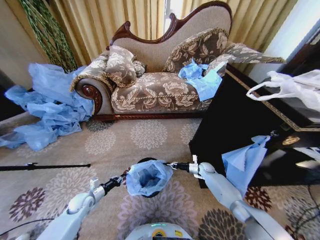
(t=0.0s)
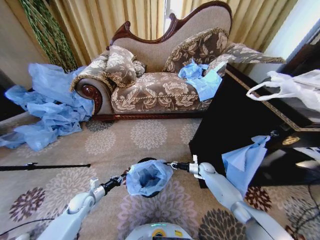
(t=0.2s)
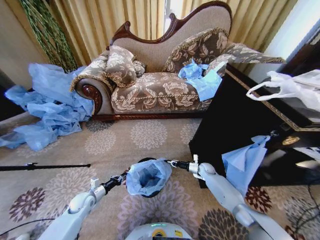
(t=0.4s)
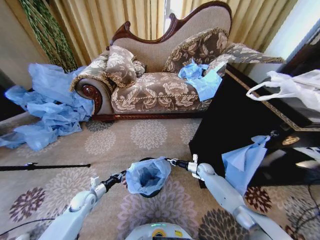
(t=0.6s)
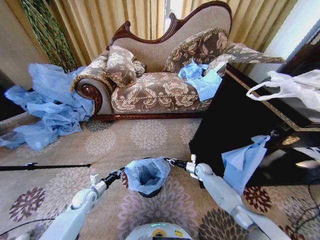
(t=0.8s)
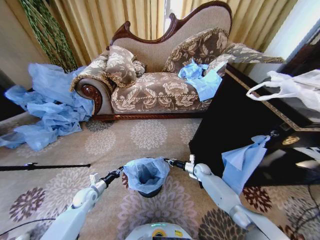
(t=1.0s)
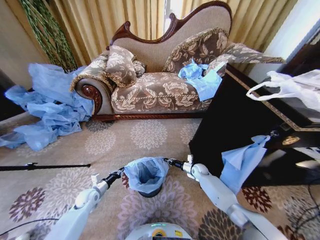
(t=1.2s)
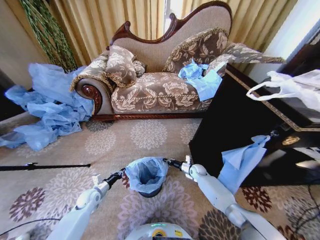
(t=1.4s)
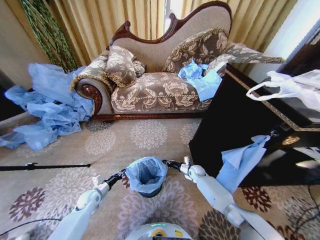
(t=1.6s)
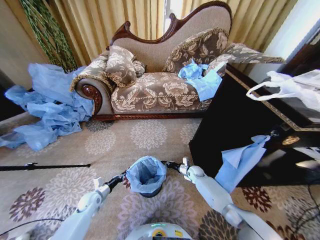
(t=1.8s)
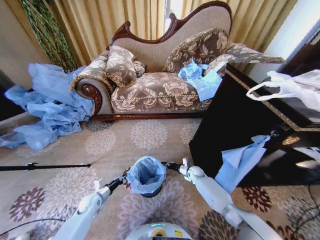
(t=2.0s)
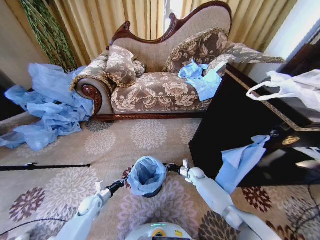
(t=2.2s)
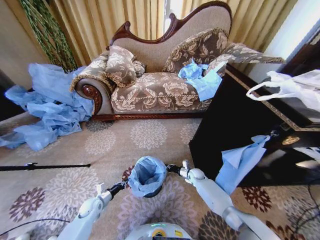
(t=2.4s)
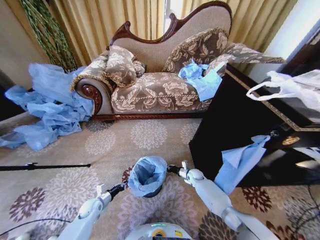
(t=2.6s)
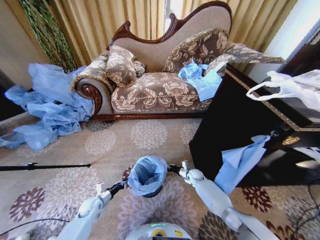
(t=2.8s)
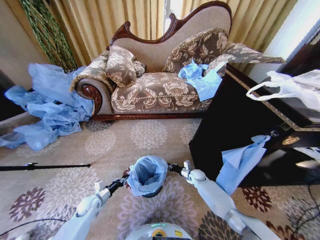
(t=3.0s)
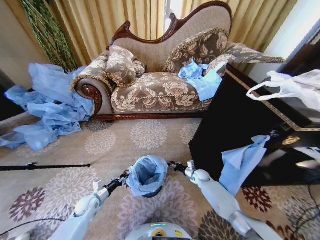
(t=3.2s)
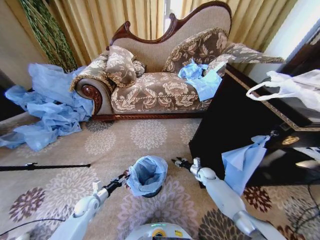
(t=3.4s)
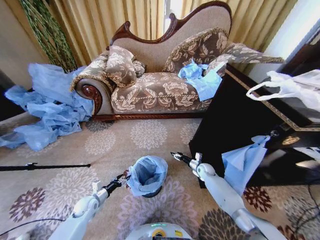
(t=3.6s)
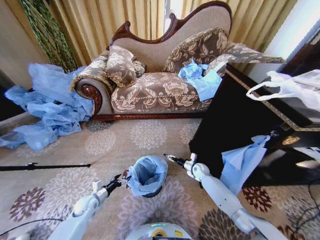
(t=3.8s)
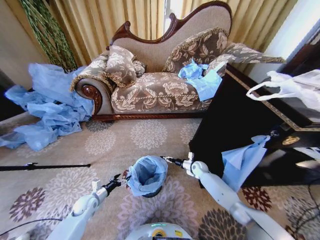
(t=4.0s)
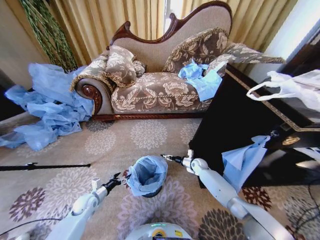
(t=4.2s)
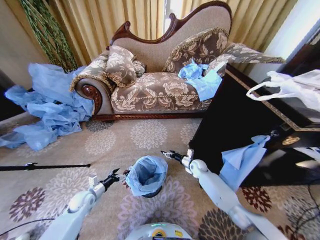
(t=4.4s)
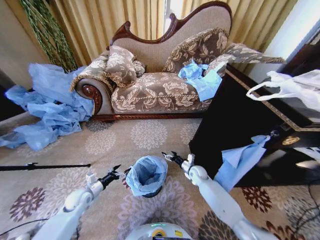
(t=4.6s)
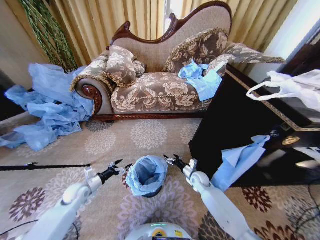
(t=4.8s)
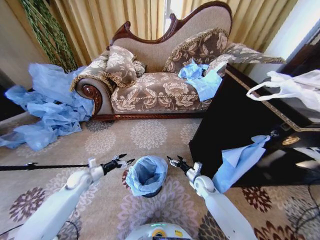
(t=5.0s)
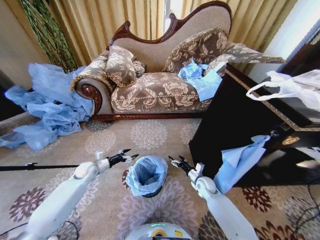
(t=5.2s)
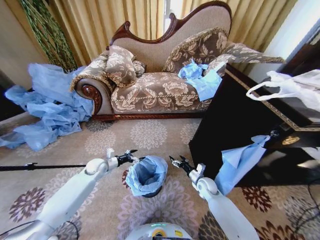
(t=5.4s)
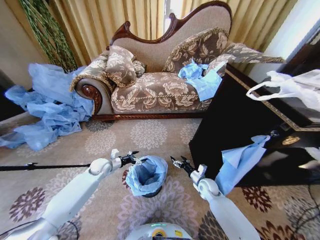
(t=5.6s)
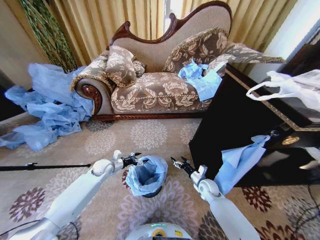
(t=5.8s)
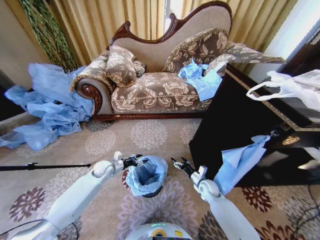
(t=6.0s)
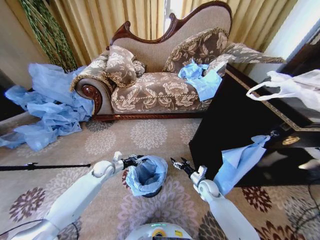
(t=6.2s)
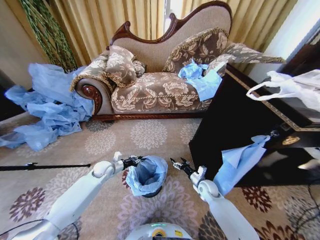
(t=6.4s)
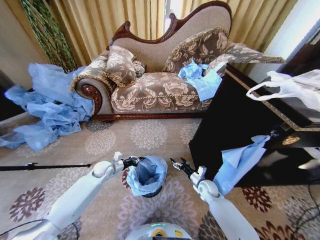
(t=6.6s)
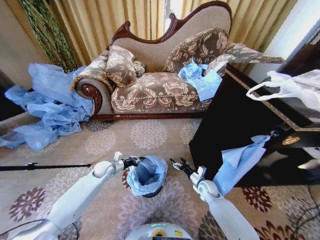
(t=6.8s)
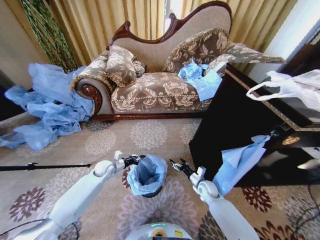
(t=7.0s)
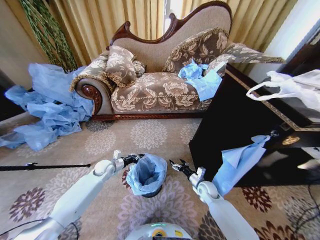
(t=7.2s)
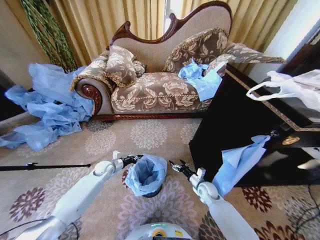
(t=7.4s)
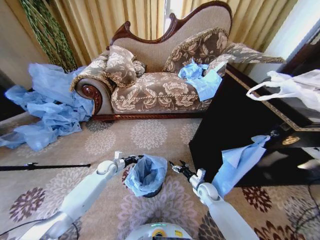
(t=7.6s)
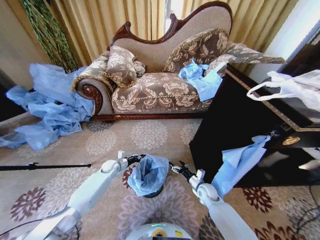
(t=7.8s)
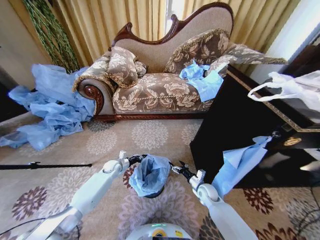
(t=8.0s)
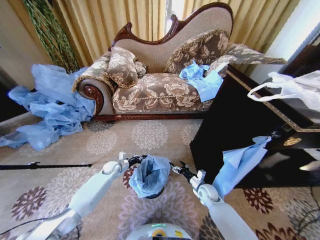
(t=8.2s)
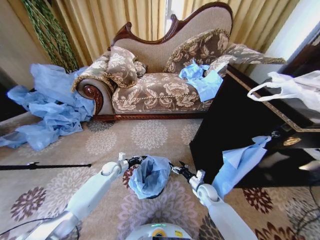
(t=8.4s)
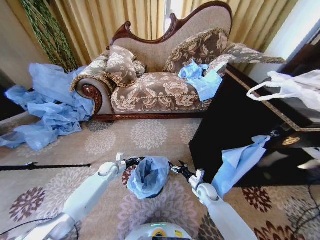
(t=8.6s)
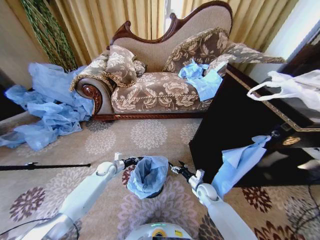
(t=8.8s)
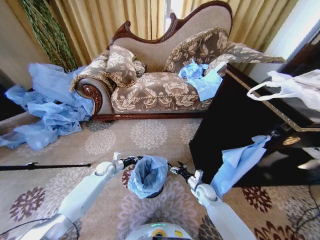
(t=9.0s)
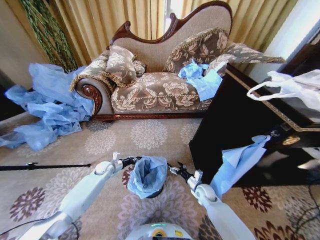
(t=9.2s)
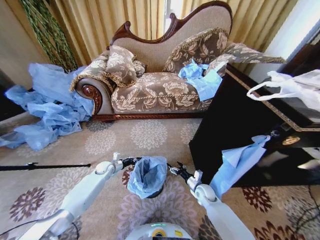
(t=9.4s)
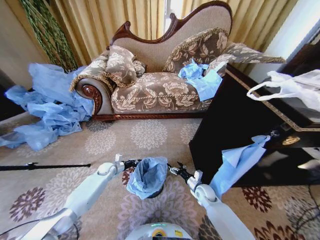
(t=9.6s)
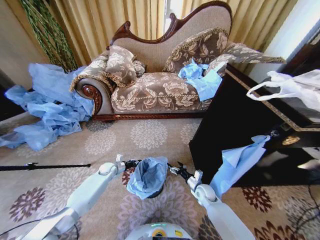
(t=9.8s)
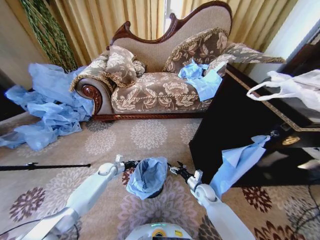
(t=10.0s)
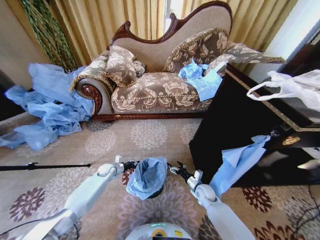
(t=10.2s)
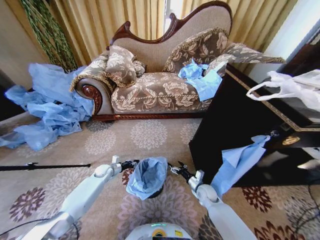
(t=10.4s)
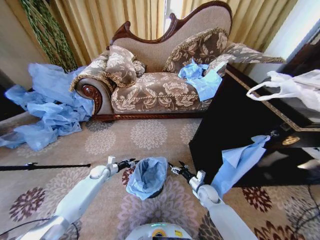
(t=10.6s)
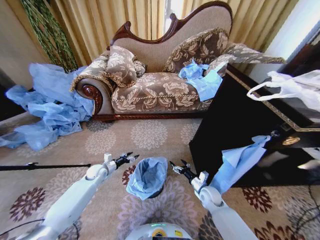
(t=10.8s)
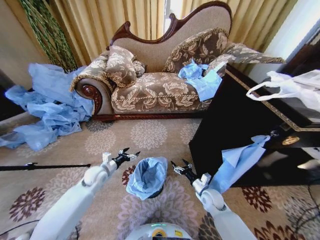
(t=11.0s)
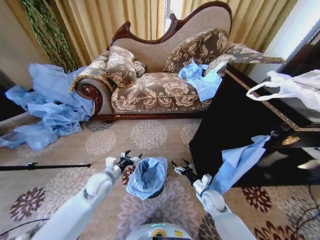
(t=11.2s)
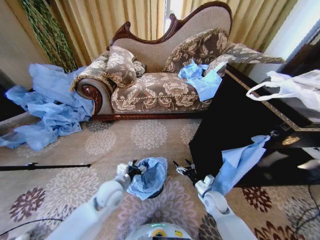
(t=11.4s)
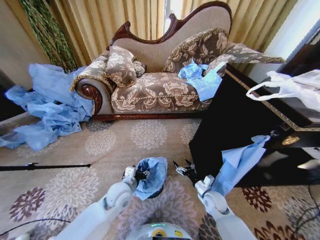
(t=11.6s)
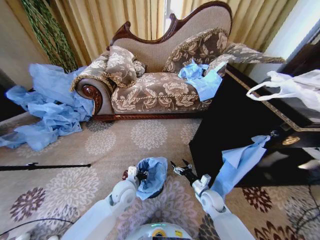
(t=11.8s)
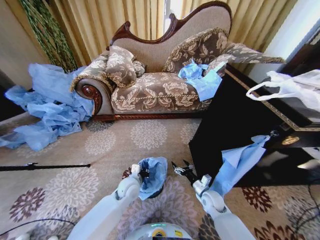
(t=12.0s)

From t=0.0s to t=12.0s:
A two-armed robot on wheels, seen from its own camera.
Task of the whole recording: Place a garbage bag over the trash bin.
From t=0.0s to t=1.6s: The right gripper shifts roughly 5 cm to the left.
From t=1.6s to t=3.0s: The grippers make only small movements.
From t=3.0s to t=4.4s: The right gripper shifts some 5 cm upward, and opens its fingers. Meanwhile the left gripper opens its fingers.
From t=4.4s to t=6.0s: The right gripper is displaced backward by roughly 15 cm. Meanwhile the left gripper travels forward, upward and to the right by roughly 15 cm.
From t=6.0s to t=7.6s: The left gripper moves roughly 5 cm, and closes up.
From t=7.6s to t=10.4s: There are only small adjustments of the grippers.
From t=10.4s to t=12.0s: The left gripper is displaced to the right, backward and upward by about 25 cm, and opens, then closes again.

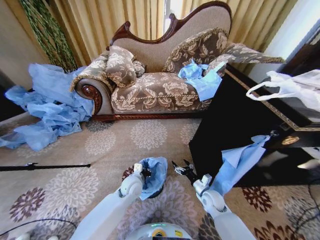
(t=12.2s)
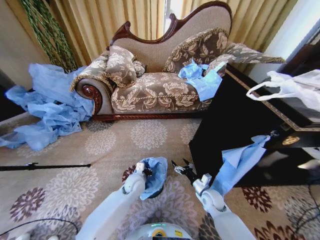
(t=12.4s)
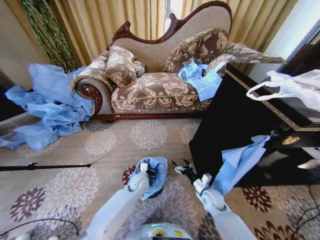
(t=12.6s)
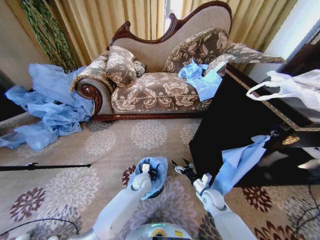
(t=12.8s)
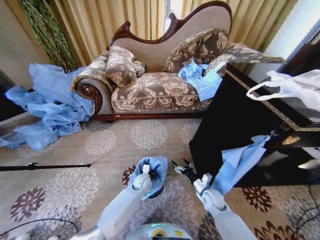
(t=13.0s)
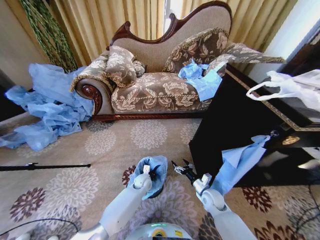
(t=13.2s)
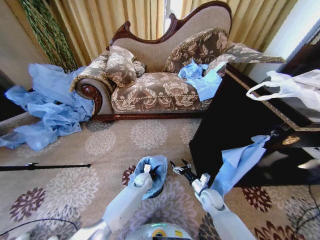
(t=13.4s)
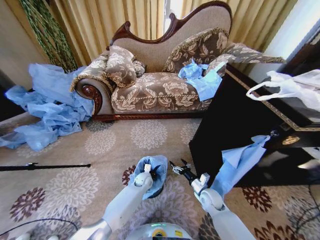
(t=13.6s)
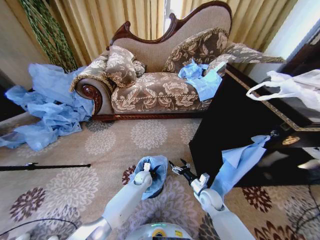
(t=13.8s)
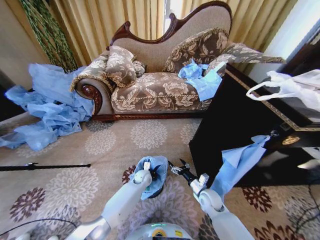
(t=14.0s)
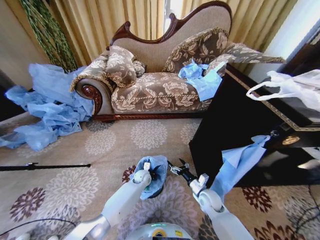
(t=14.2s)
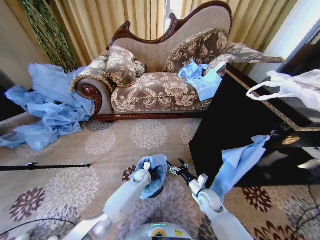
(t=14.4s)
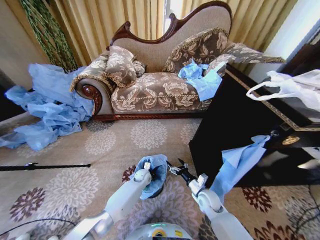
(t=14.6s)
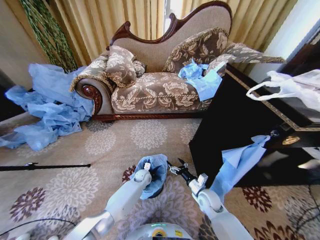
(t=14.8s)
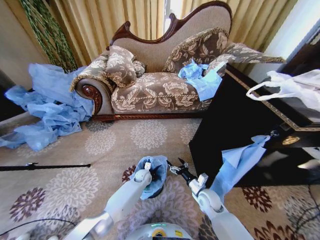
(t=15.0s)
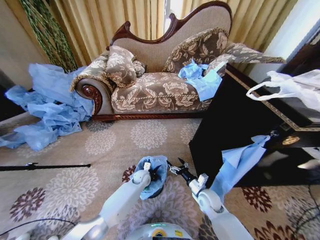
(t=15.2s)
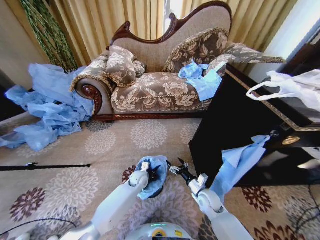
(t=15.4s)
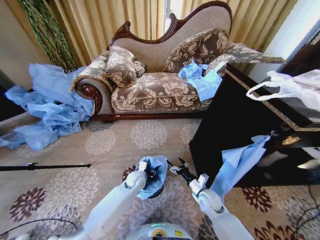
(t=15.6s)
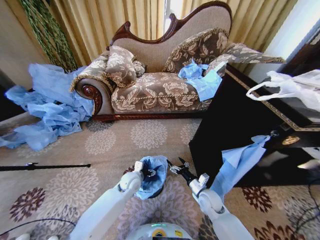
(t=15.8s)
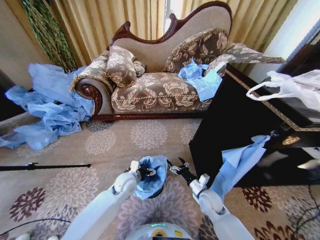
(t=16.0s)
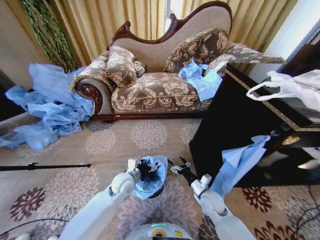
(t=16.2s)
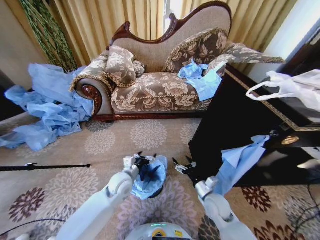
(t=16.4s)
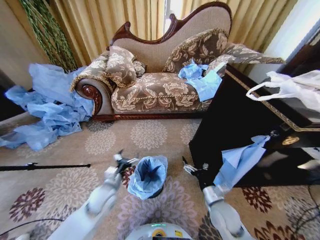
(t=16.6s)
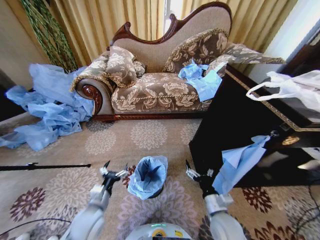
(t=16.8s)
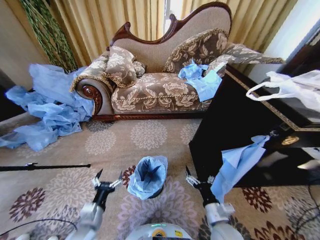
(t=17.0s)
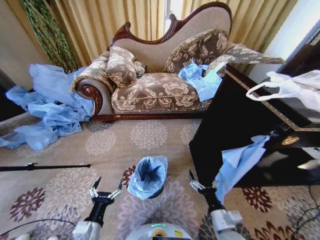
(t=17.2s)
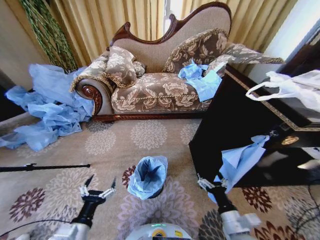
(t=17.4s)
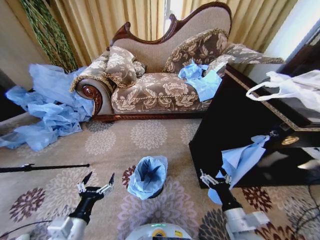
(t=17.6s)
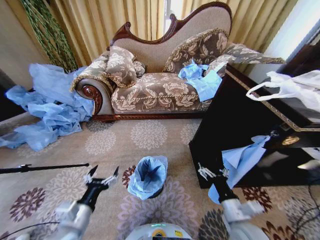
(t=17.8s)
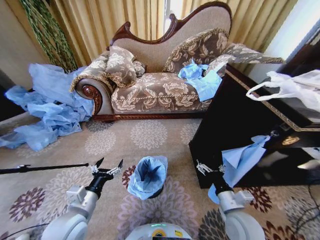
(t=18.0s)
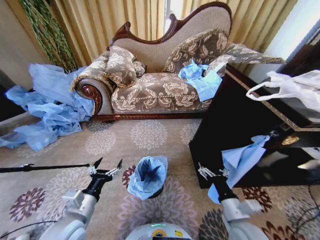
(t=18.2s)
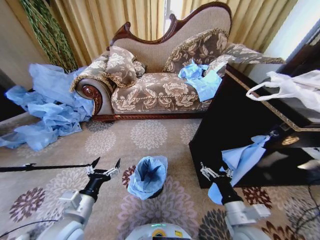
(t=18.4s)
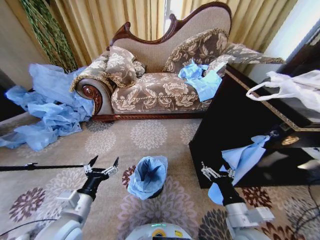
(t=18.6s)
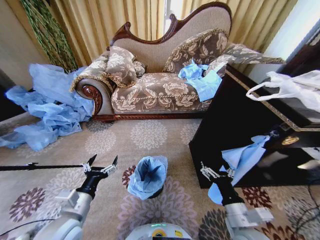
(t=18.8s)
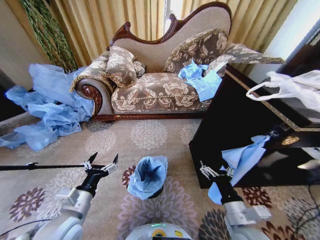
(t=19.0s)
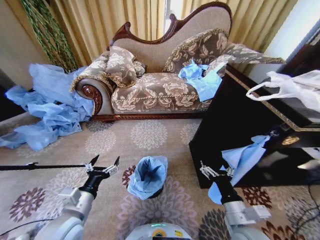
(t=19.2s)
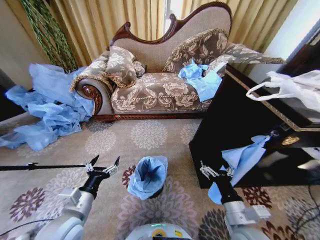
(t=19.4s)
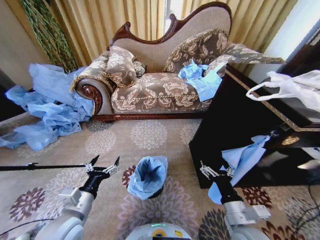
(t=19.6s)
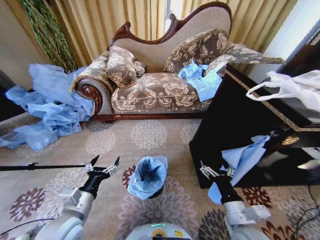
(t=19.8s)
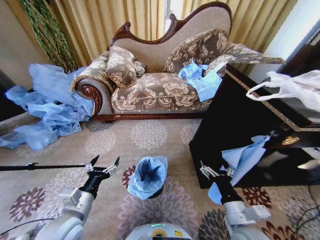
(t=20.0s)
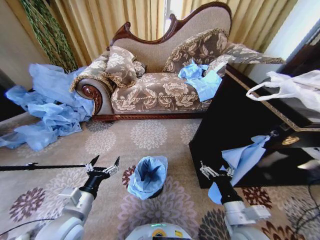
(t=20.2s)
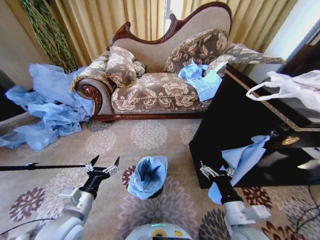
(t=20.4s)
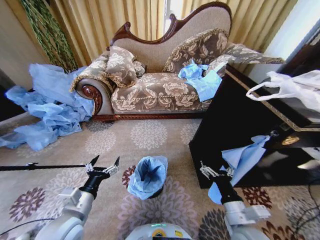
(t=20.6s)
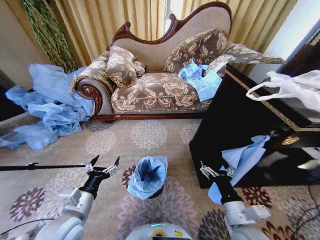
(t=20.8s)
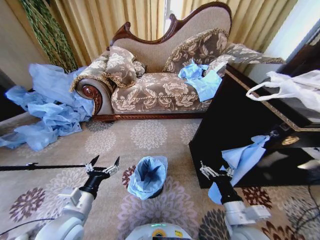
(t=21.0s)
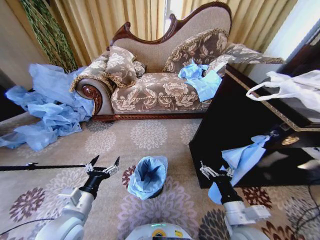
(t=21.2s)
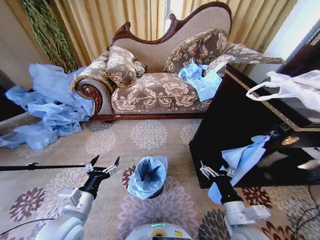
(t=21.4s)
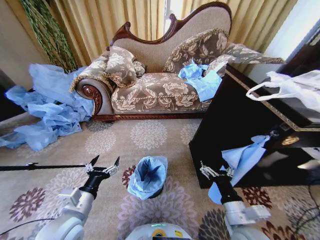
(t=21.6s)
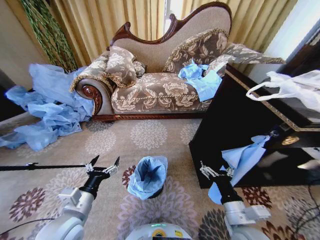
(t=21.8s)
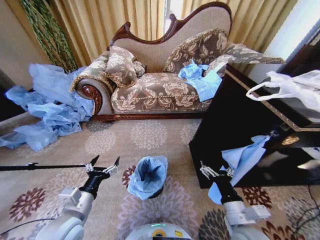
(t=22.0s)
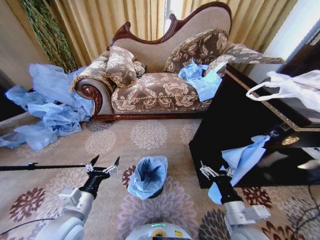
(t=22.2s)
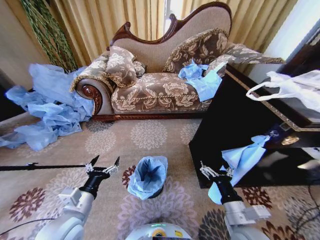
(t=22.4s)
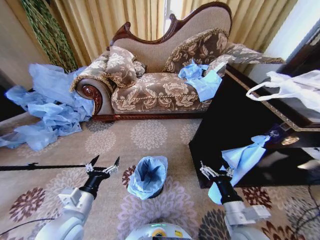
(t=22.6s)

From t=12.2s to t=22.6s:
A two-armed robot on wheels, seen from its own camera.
Task of the whole recording: Place a garbage bag over the trash bin.
From t=12.2s to t=13.6s: The left gripper moves downward and forward, roughly 15 cm.
From t=13.6s to t=15.2s: There are only small adjustments of the grippers.
From t=15.2s to t=16.6s: The left gripper goes approximately 25 cm backward, upward and to the left, and opens its fingers, while the right gripper heads backward and upward, covering some 10 cm.
From t=16.6s to t=18.2s: The left gripper is displaced backward and upward by approximately 15 cm, while the right gripper goes about 10 cm backward and upward.
From t=18.2s to t=19.6s: The grippers move only a little.
From t=19.6s to t=22.6s: Neither gripper changes place.
